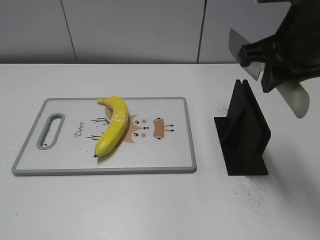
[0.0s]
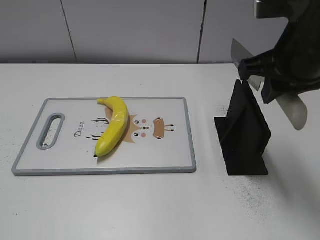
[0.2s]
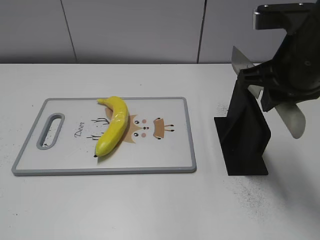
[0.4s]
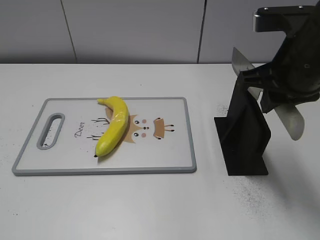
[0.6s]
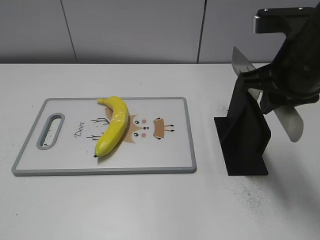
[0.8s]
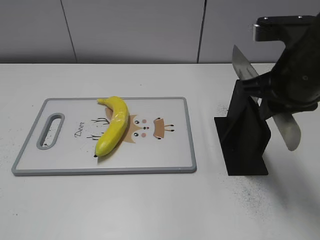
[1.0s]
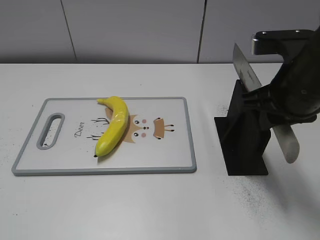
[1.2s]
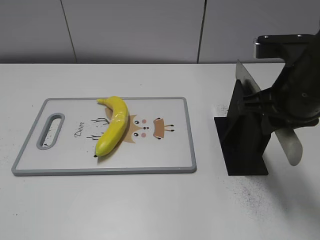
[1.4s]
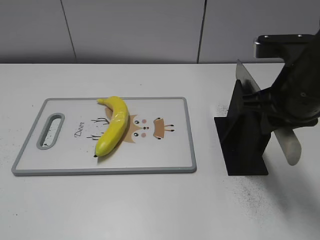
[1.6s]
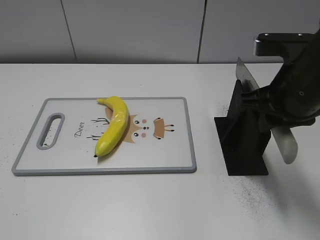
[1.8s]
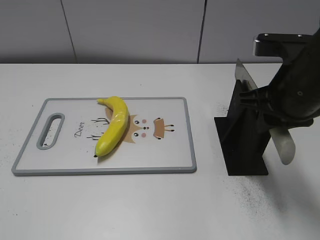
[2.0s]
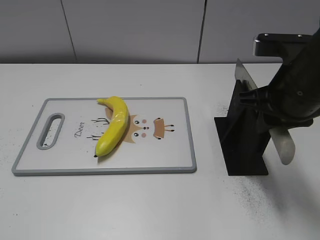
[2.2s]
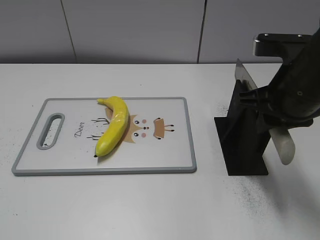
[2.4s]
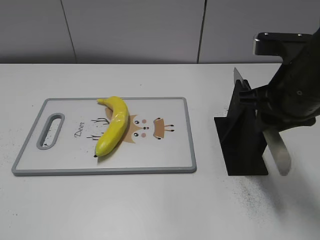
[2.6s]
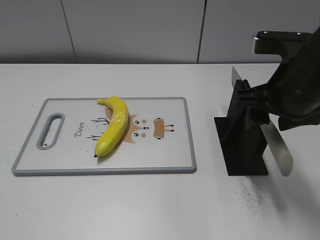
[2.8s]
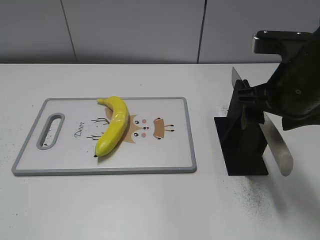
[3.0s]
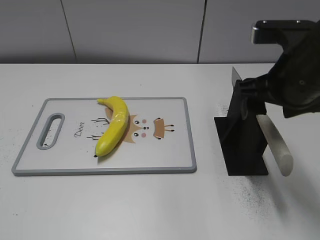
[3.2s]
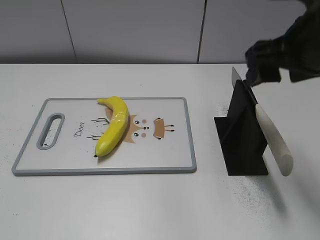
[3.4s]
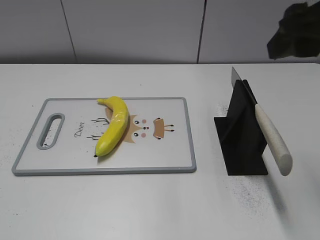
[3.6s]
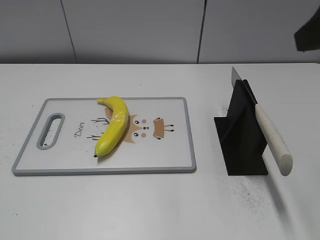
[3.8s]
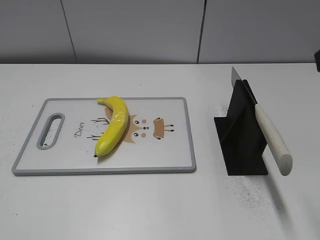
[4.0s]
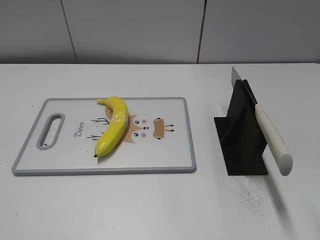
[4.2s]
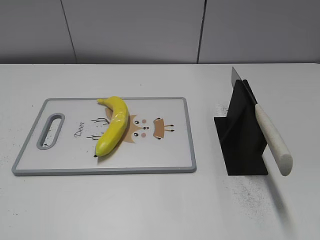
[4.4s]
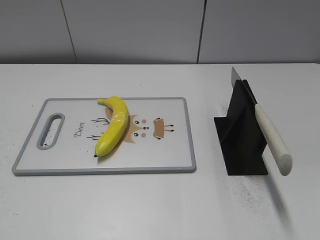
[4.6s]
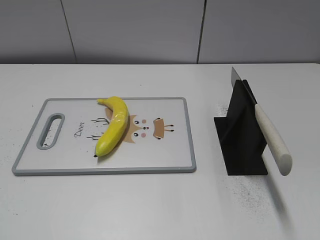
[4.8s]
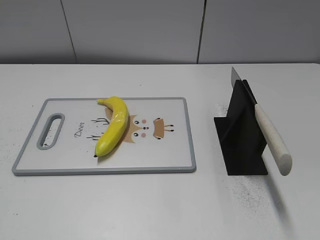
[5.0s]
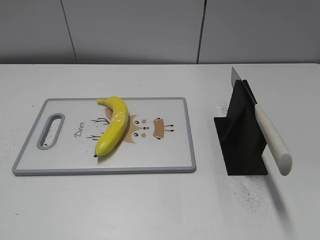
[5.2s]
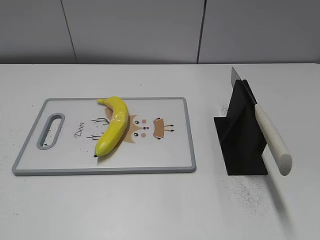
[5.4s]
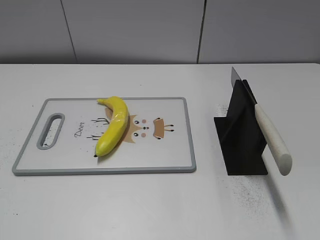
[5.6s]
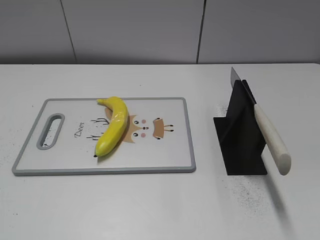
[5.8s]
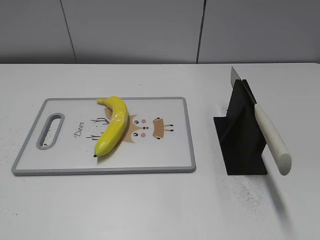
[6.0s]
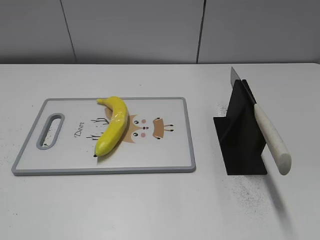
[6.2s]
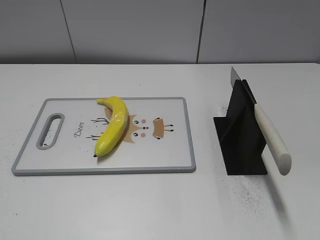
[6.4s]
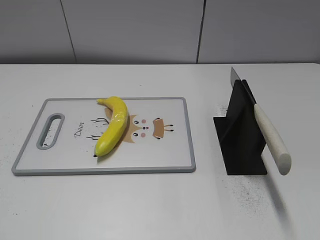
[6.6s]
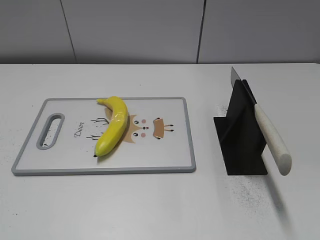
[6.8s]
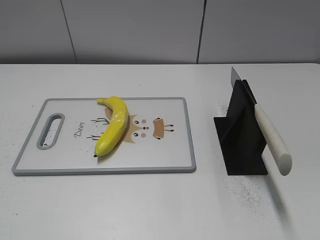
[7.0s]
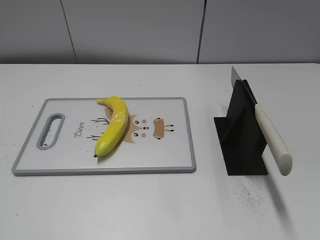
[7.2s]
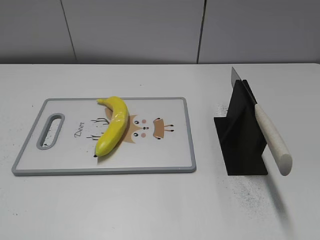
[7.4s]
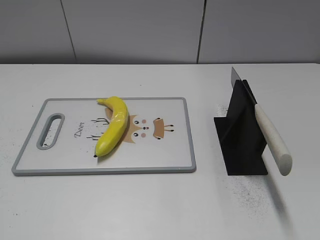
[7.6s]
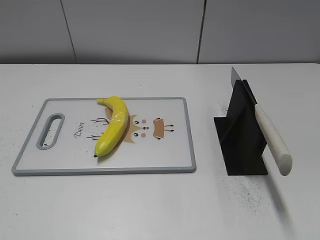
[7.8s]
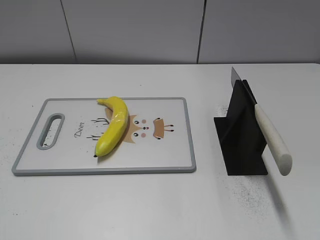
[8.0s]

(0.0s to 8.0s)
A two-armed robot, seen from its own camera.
Task of the whole recording: cut plastic banana.
Step, 0.4s - 7.0s: Place the knife on the storage rack with your right hand.
0.0s - 1.6s: The right gripper heads downward, covering roughly 5 cm.
1.6s - 3.2s: The right gripper opens.
3.2s - 4.8s: The right gripper moves backward and to the right, approximately 25 cm.
